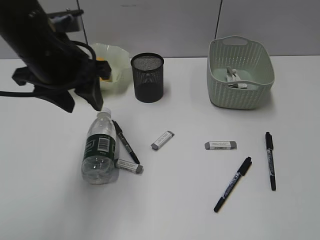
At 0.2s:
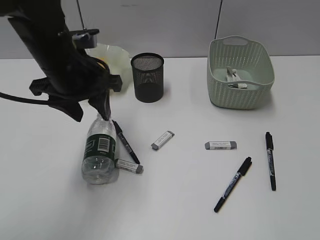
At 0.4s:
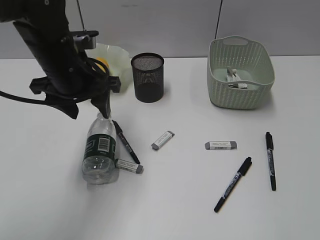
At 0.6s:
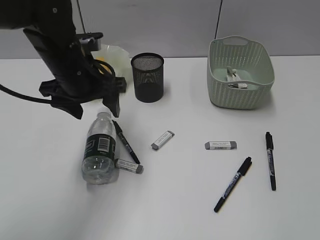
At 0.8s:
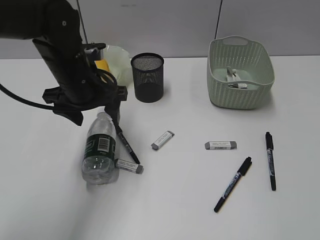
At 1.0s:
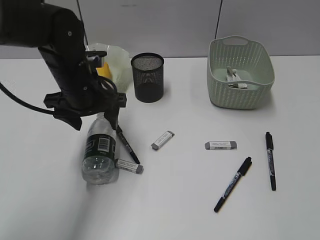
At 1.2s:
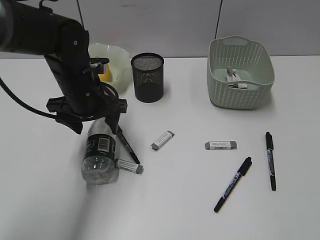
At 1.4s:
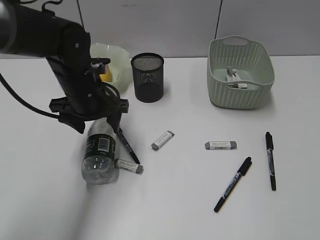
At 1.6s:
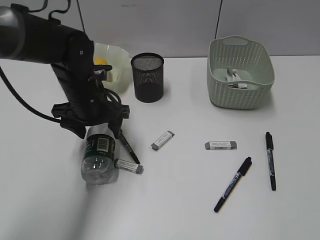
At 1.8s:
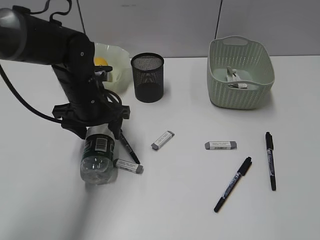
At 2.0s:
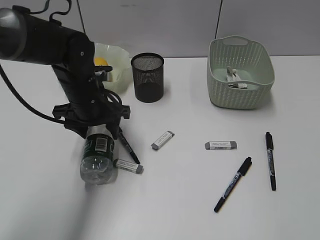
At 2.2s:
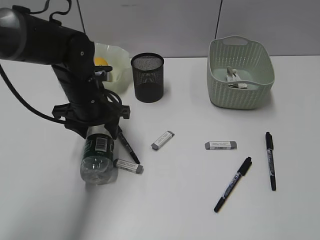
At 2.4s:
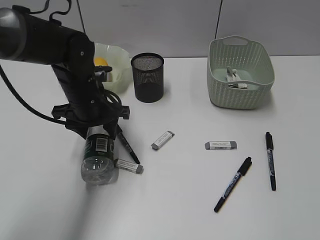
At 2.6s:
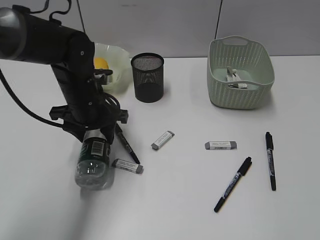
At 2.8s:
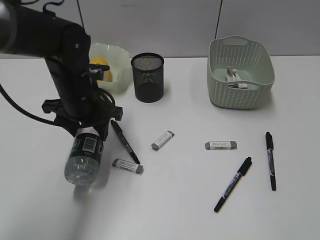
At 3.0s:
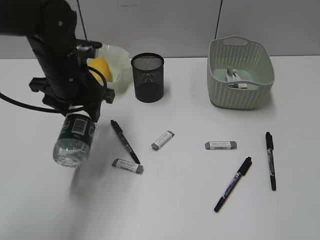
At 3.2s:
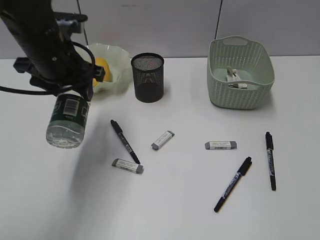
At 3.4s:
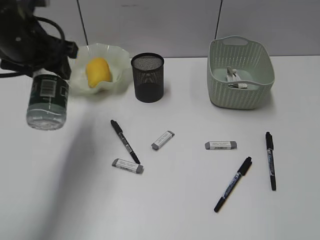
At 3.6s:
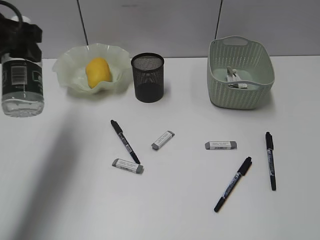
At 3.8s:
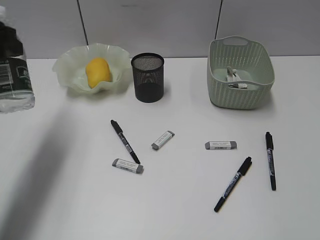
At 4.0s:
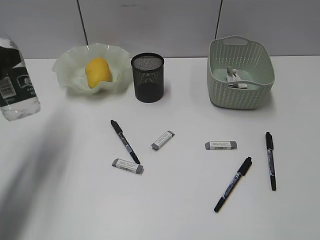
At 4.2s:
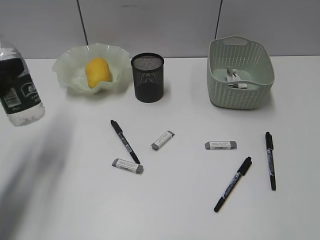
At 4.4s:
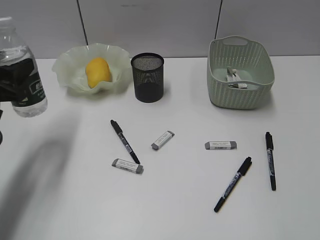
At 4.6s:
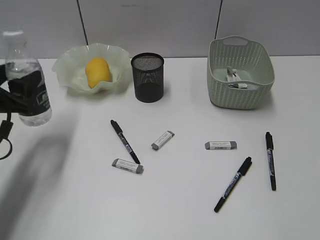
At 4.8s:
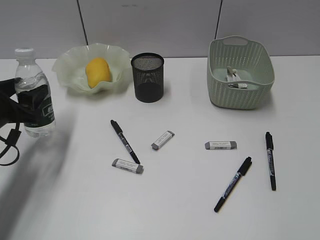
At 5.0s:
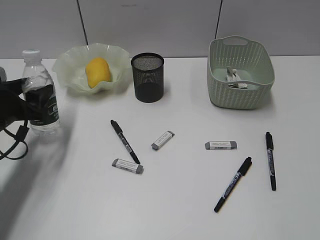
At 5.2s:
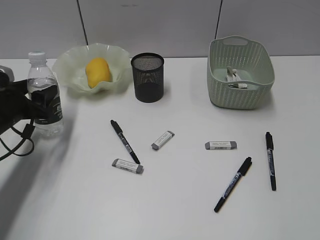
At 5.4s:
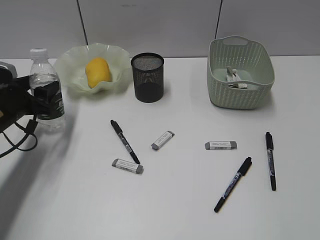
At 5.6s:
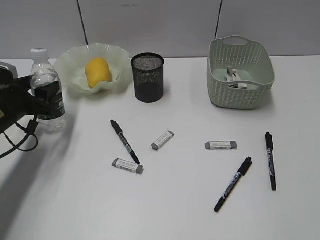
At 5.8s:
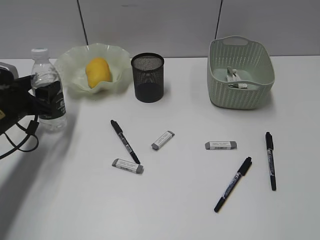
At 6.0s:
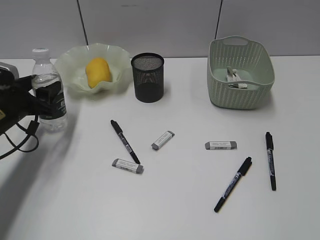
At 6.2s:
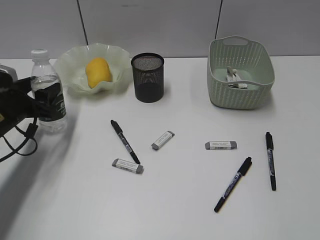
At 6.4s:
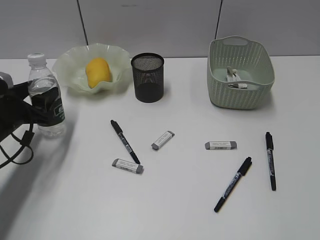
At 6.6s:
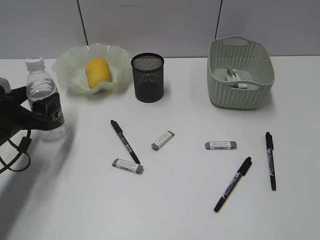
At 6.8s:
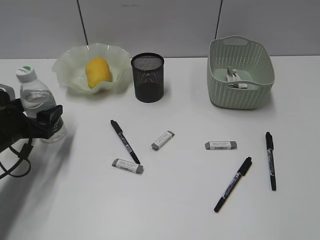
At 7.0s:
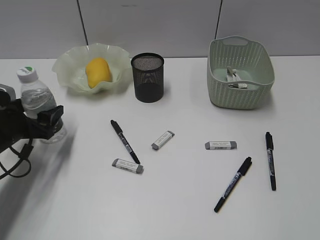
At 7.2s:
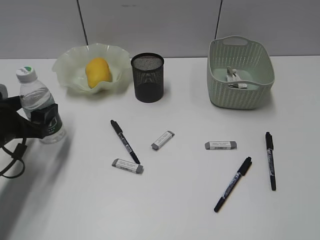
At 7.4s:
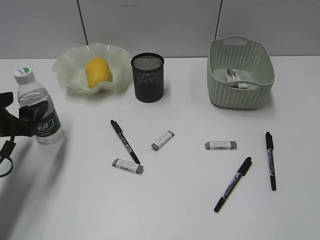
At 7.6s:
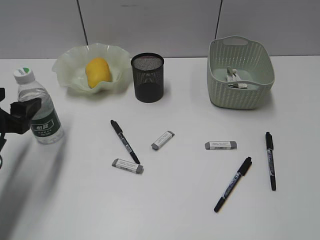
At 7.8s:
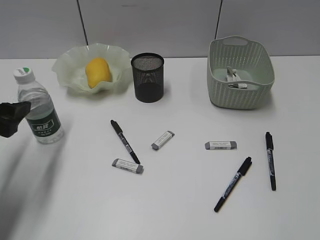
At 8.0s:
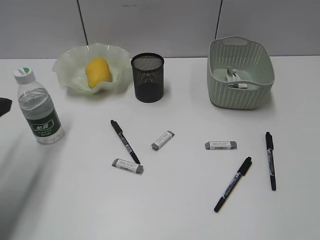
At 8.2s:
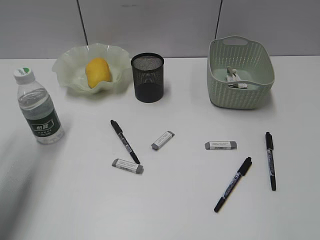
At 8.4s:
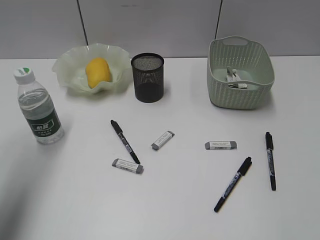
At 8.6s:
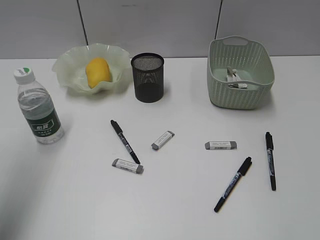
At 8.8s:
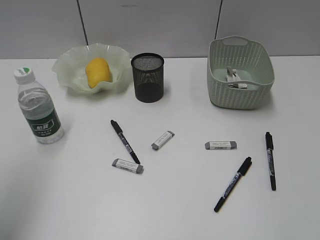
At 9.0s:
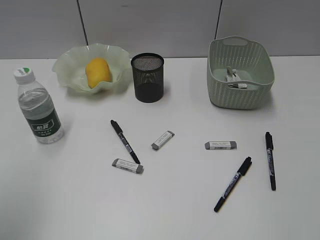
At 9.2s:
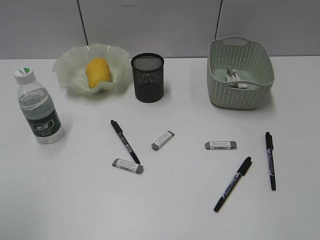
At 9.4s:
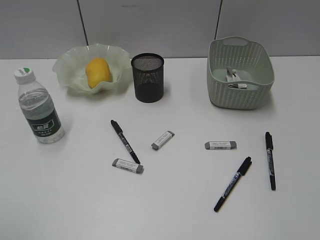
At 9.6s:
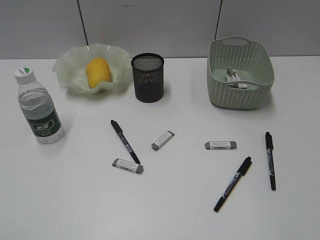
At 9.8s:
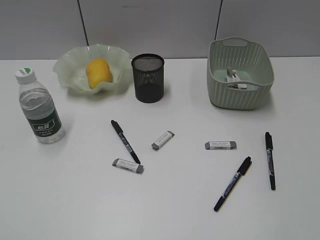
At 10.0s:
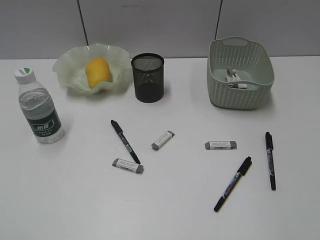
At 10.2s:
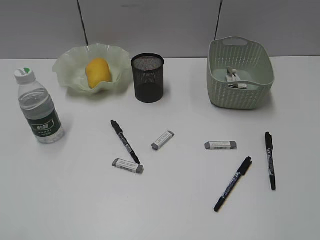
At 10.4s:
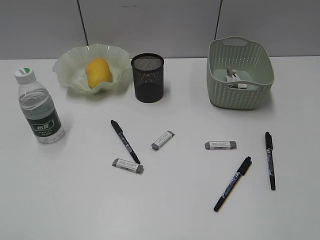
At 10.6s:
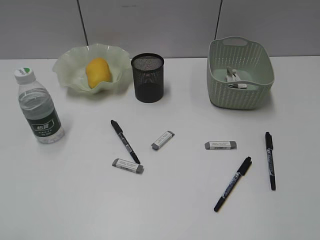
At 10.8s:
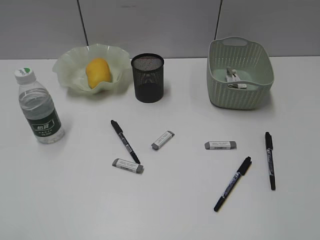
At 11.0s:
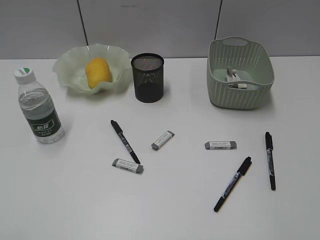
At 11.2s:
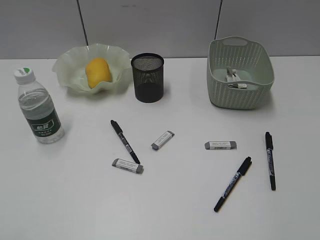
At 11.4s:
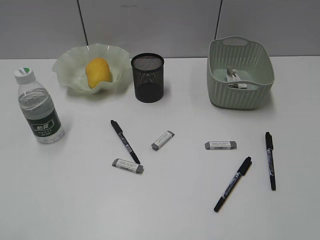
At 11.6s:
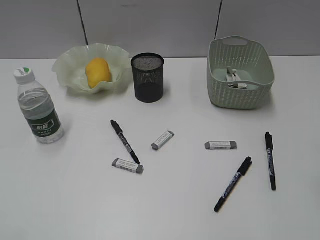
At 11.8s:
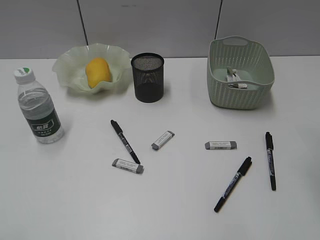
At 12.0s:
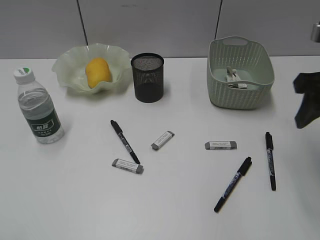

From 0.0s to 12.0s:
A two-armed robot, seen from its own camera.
Step, from 0.0s to 2.4s: Grasp the bottle with left gripper.
Step, from 2.6s to 7.4s: Stand the bottle with left gripper.
From 0.0s to 1.6s: The left gripper heads downward, covering approximately 10 cm, and opens its fingers.
From 1.6s to 3.0s: The left gripper heads upward, covering some 5 cm.
From 3.0s to 4.4s: The left gripper goes approximately 15 cm to the left and backward.
From 4.4s to 6.0s: The left gripper goes about 10 cm downward and forward.
From 6.0s to 7.6s: The left gripper is displaced backward by some 10 cm.
From 7.6s to 9.0s: The left gripper goes roughly 25 cm upward and backward.
From 9.0s to 10.4s: The left gripper travels backward and downward by roughly 15 cm.
From 10.4s to 12.0s: The right gripper travels forward by approximately 30 cm.

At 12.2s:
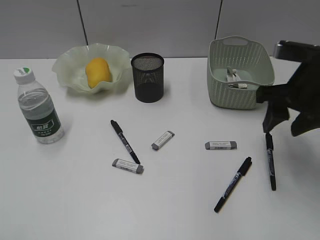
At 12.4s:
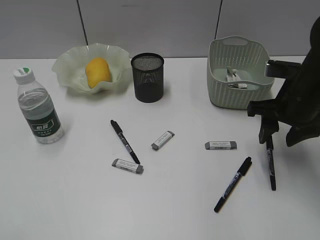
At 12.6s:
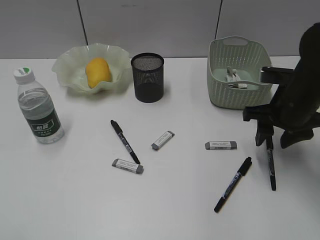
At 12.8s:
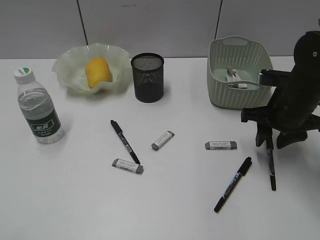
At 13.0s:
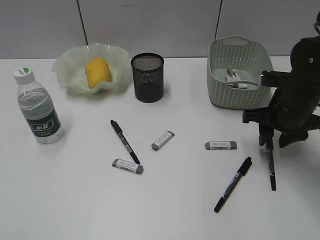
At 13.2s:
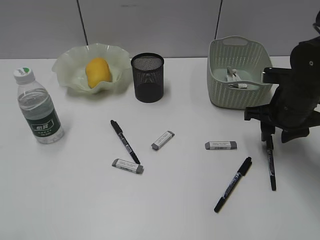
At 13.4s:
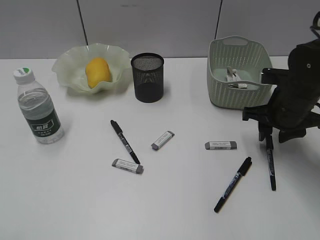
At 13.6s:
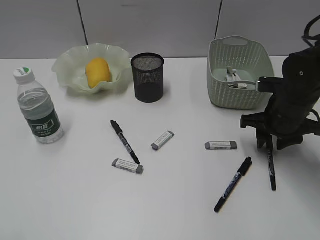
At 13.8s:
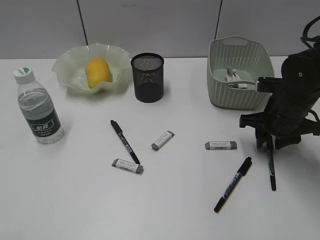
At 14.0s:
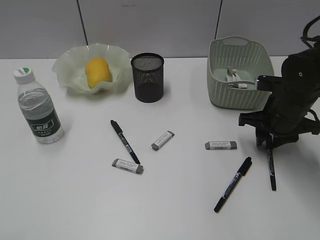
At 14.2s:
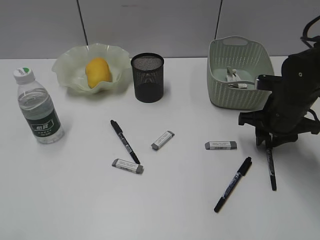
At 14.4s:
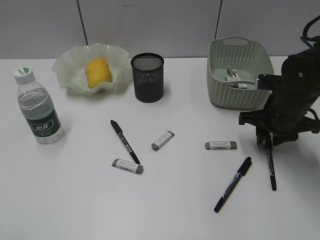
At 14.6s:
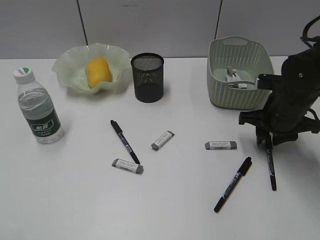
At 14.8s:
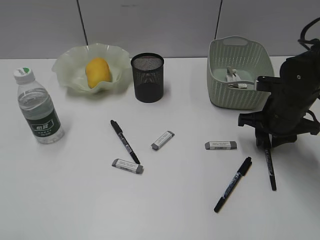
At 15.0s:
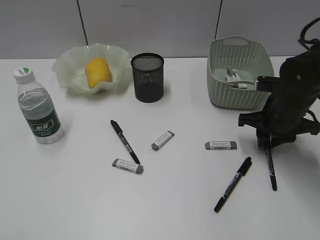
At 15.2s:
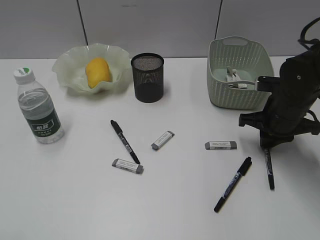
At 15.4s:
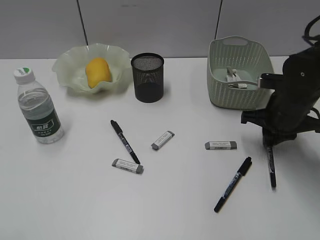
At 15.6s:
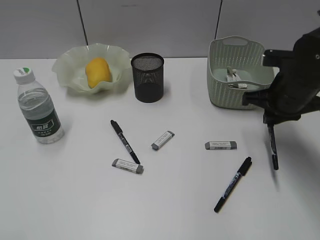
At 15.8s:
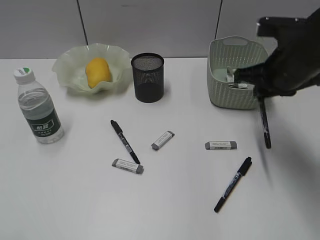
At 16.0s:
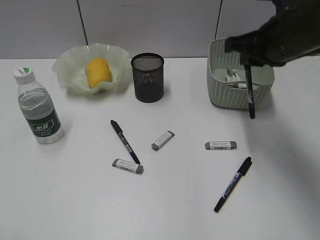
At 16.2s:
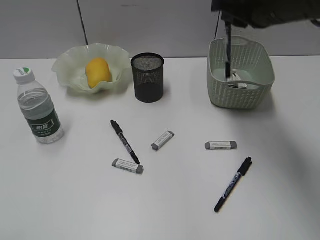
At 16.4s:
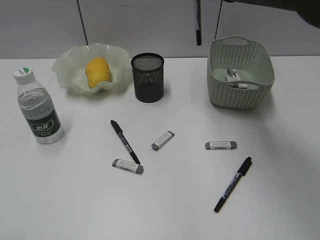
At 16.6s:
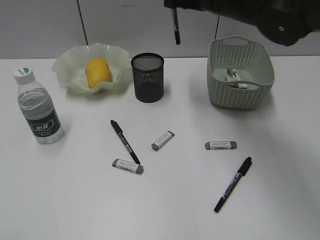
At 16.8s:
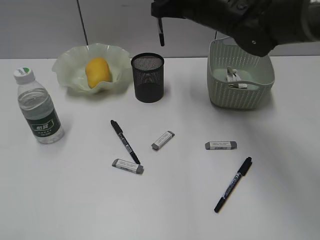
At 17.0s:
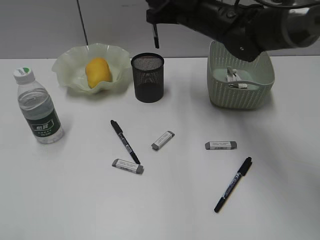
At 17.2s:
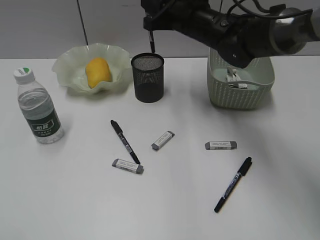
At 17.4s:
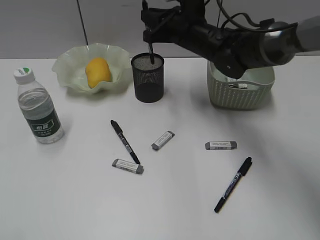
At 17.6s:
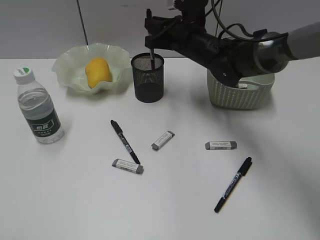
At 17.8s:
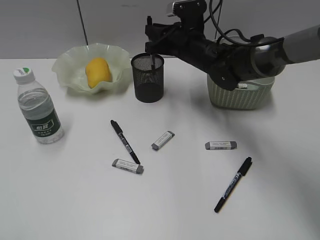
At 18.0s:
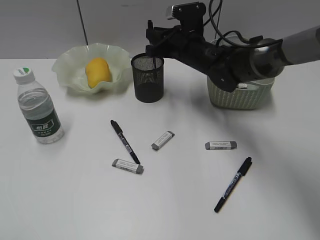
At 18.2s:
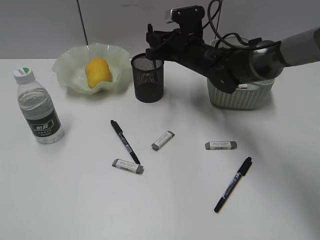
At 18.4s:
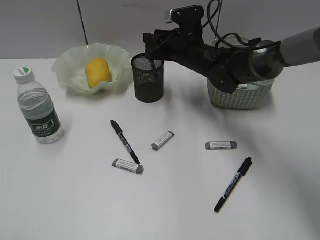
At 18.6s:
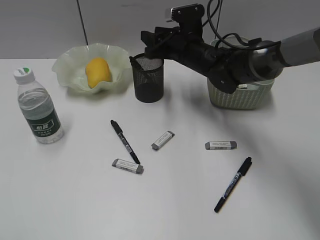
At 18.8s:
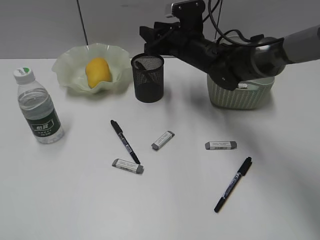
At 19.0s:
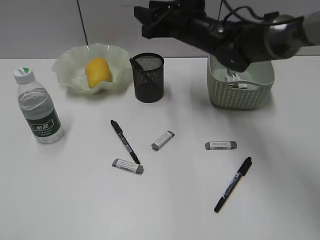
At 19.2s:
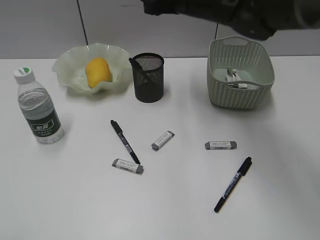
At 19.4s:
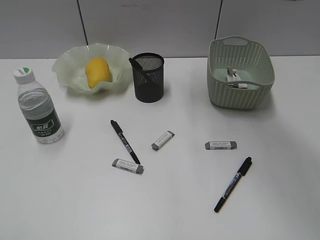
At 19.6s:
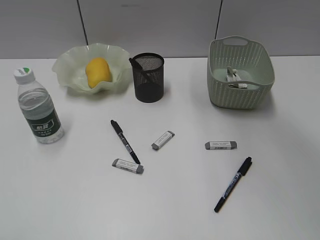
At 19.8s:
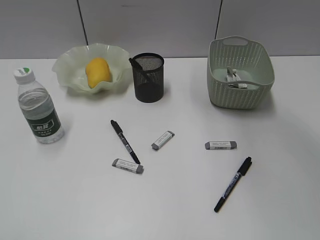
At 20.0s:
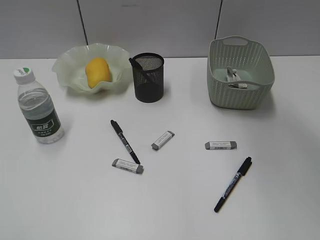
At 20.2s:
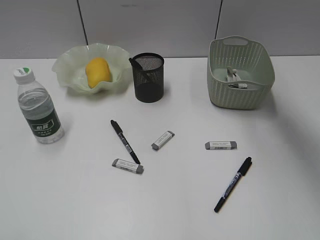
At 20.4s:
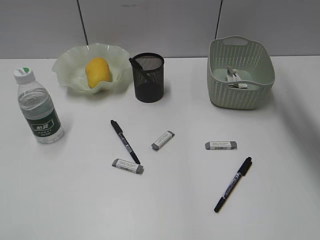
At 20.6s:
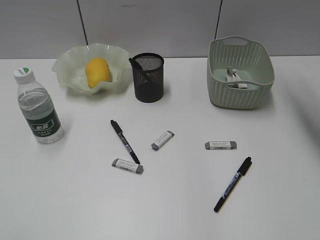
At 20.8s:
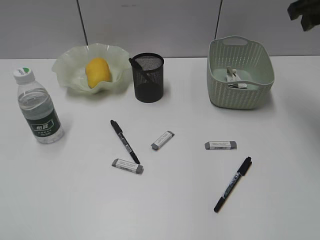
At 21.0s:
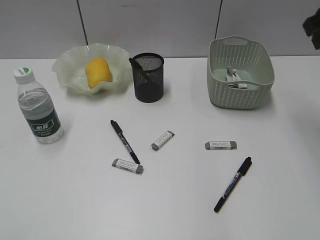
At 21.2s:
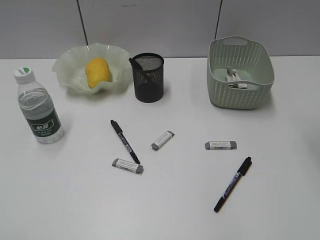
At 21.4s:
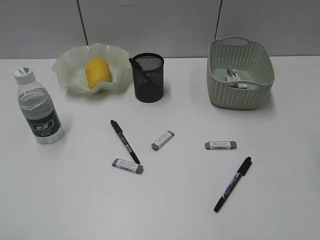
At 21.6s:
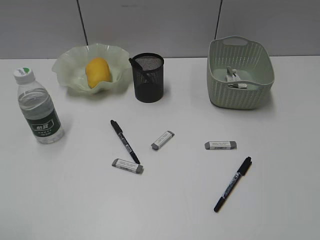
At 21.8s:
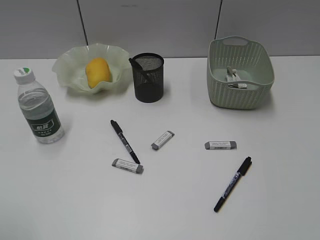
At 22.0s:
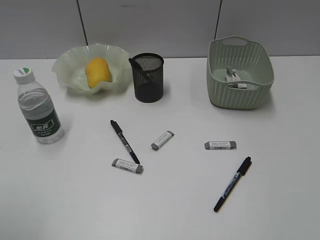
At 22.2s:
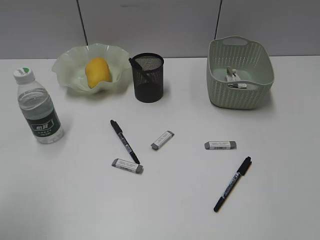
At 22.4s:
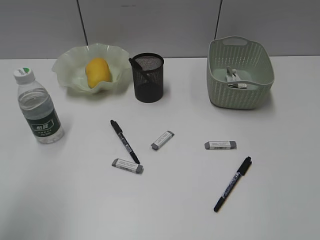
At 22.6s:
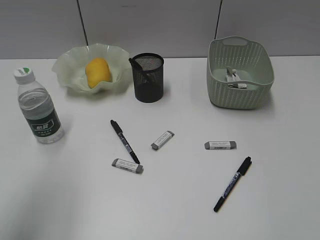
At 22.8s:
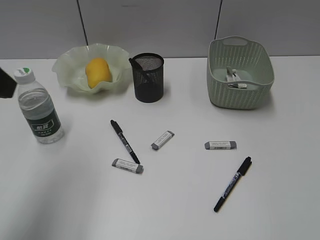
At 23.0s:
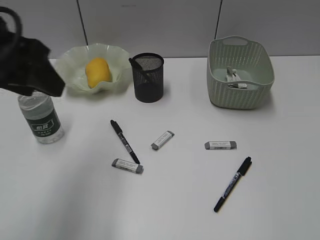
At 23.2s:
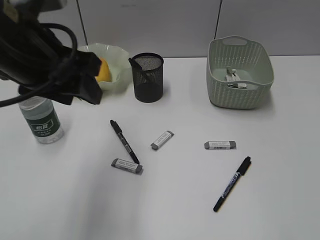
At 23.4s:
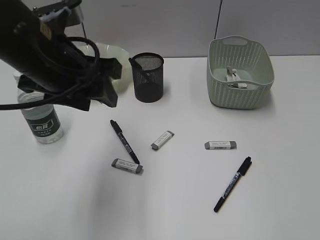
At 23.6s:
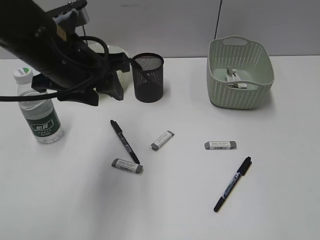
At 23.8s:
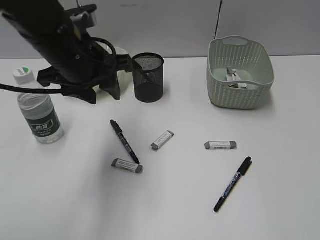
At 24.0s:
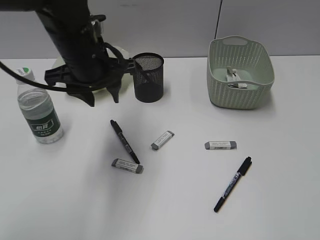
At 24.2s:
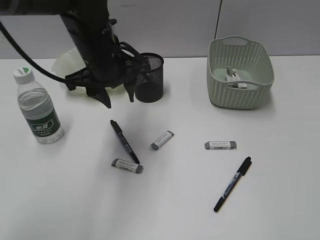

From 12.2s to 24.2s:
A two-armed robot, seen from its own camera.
Step, from 12.2s to 15.2s: Grasp the black pen with right gripper.
Step, from 15.4s to 18.6s: Place the black pen in pen holder with right gripper.
From 12.2s to 13.8s: The right gripper heads downward, covering roughly 10 cm.
From 13.8s to 15.2s: The right gripper closes its fingers.
From 15.2s to 16.6s: The right gripper travels upward and to the left by roughly 20 cm.
From 16.6s to 18.2s: The right gripper shifts about 15 cm downward and forward.
From 18.2s to 19.8s: The right gripper goes about 25 cm upward and backward, and opens its fingers.
From 19.8s to 21.2s: The right gripper is displaced to the right and backward by about 20 cm.
From 21.2s to 22.6s: The left gripper moves forward, about 15 cm.
From 22.6s to 24.2s: The right gripper moves backward, some 5 cm. The left gripper heads forward, to the right and downward, covering about 30 cm.
